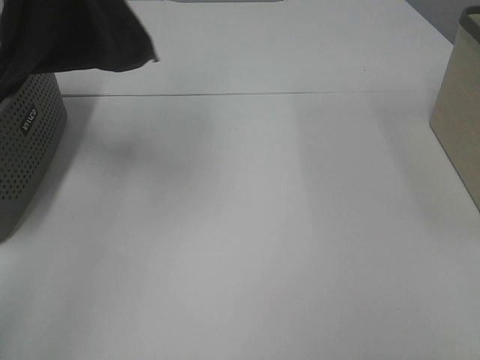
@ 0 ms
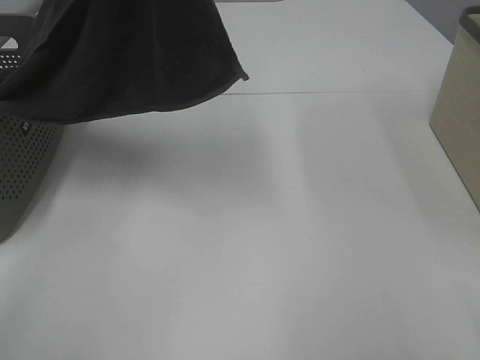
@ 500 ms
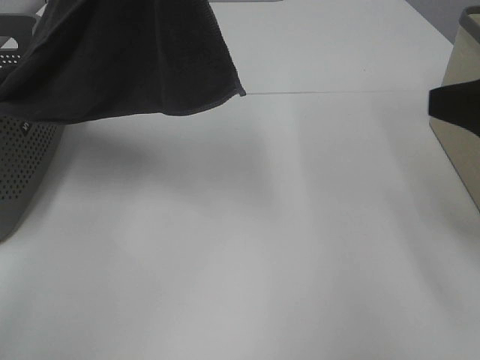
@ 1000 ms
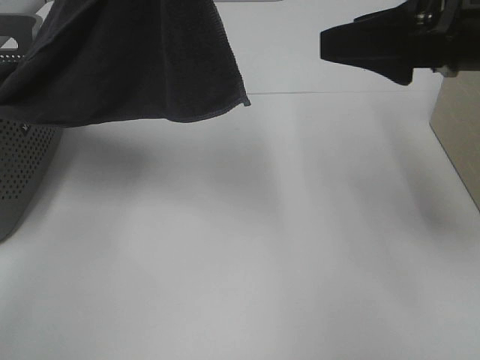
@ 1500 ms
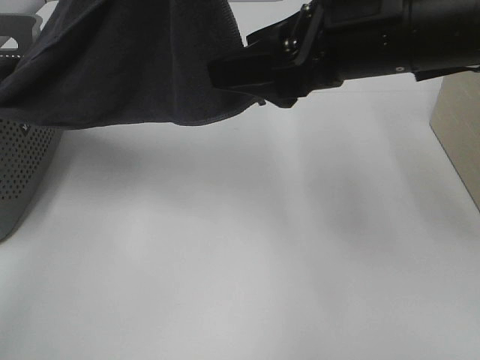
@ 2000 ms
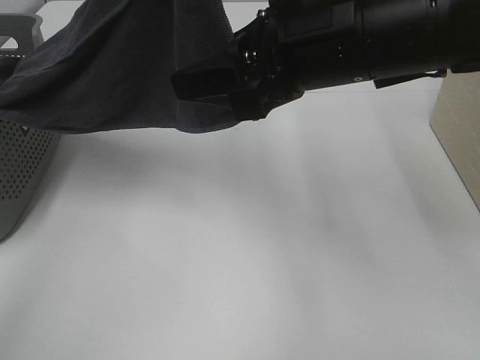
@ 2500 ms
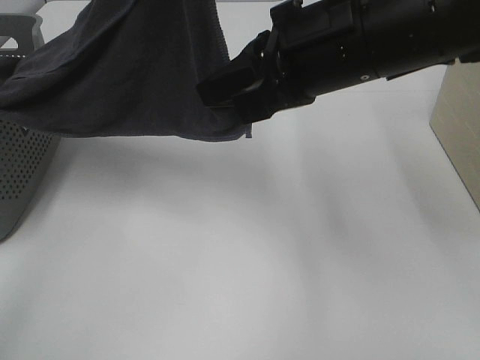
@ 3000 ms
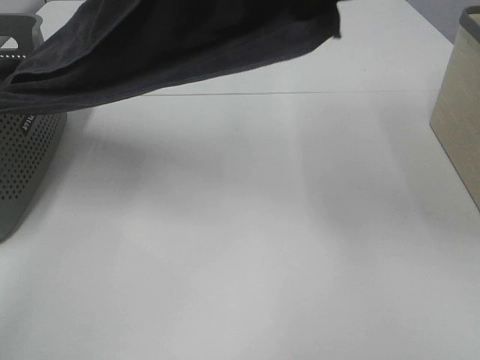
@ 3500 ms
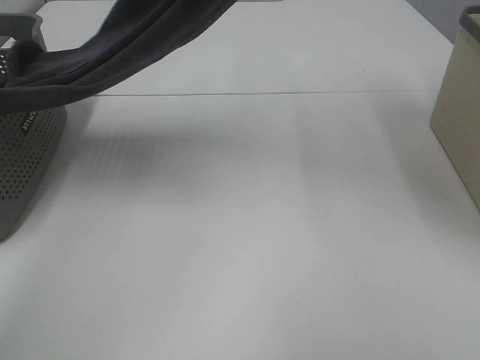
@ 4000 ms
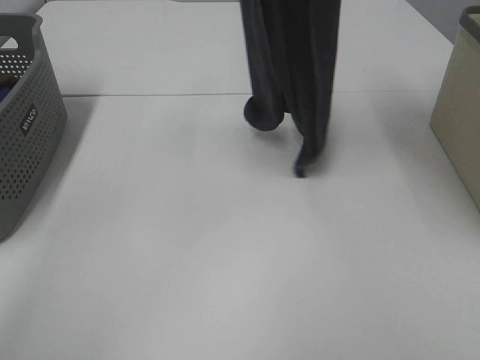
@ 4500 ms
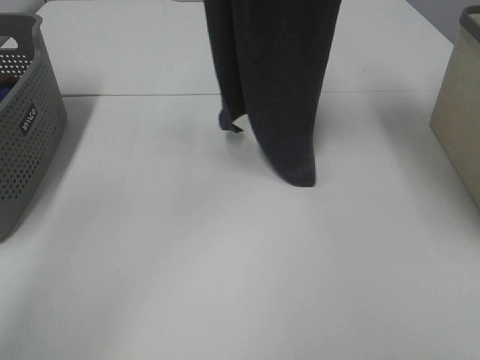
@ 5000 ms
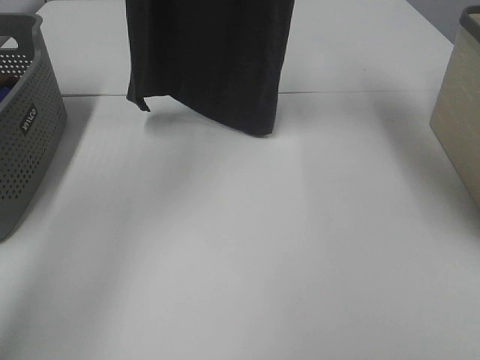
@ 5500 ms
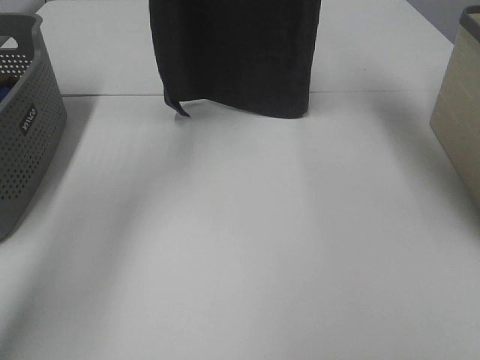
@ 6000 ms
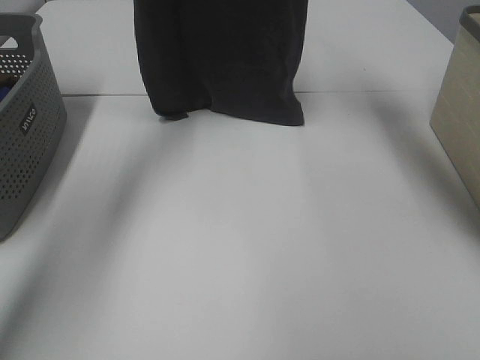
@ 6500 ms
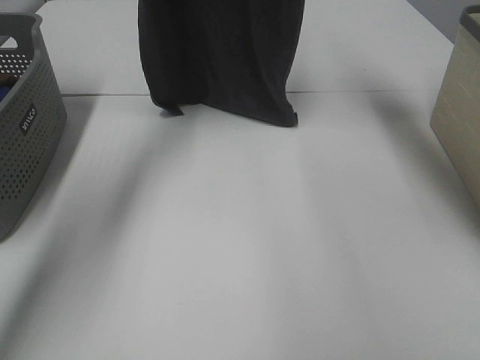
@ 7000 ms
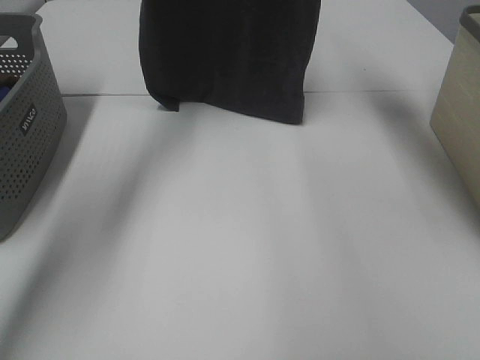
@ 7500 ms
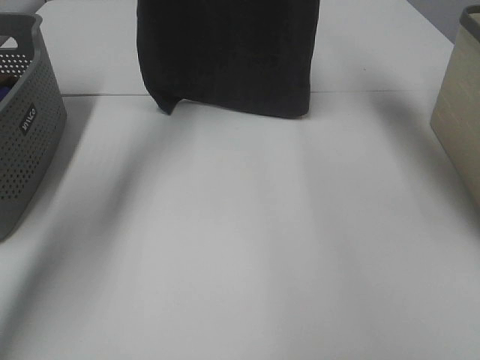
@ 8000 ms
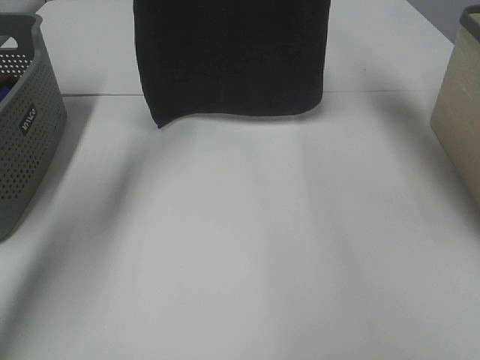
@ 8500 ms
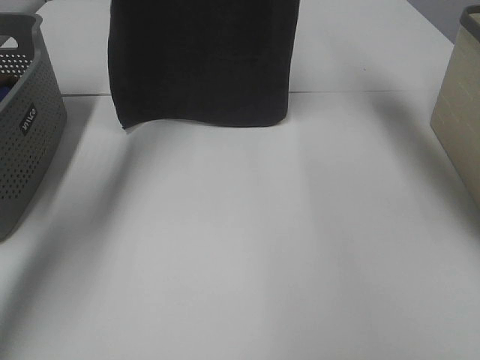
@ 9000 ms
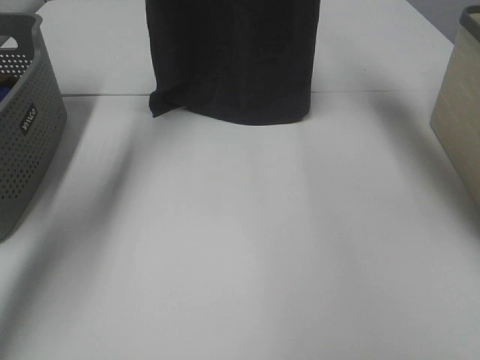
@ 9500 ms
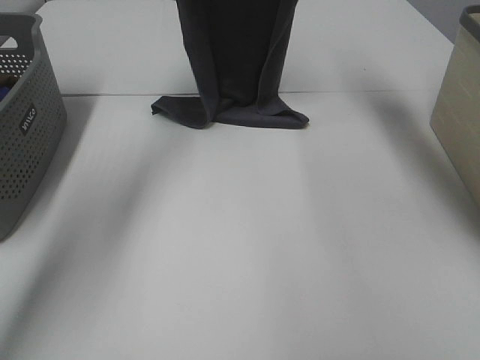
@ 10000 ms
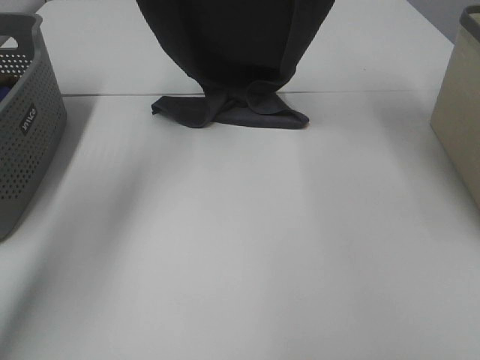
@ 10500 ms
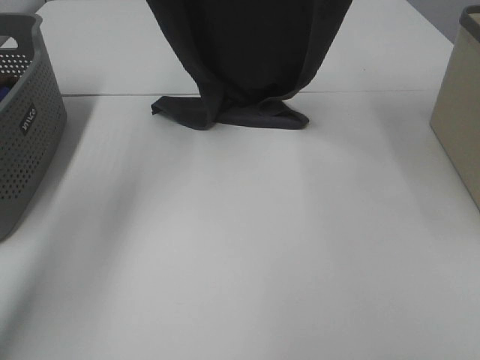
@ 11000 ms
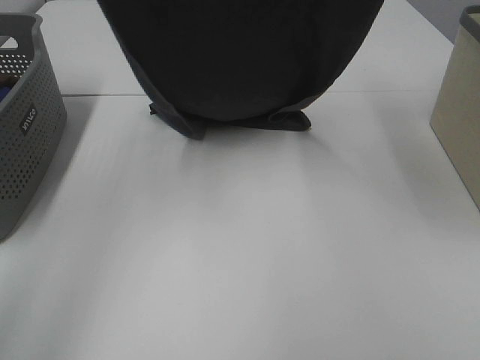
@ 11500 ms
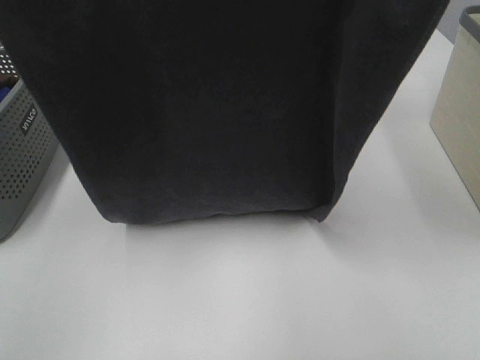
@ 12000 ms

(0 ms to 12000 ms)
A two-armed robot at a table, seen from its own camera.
Task of the whole recording: Remove the towel and place it.
Step, 0 ms - 3000 ms: Right hand: grab a corner of the grey towel and straighten it.
0 ms - 2000 ms: The right gripper travels forward and to the left by approximately 30 cm; the left gripper goes some 5 cm to the right.
2000 ms - 4000 ms: The left gripper goes about 5 cm forward; the right gripper moves upward, about 20 cm, and closes up.
4000 ms - 6000 ms: The right gripper moves forward, approximately 15 cm. Meanwhile the left gripper heads forward and downward, covering roughly 15 cm.
6000 ms - 8000 ms: The left gripper shifts by about 5 cm.
8000 ms - 10000 ms: Both grippers move downward, approximately 5 cm.
10000 ms - 12000 ms: Both grippers travel together backward, some 30 cm.

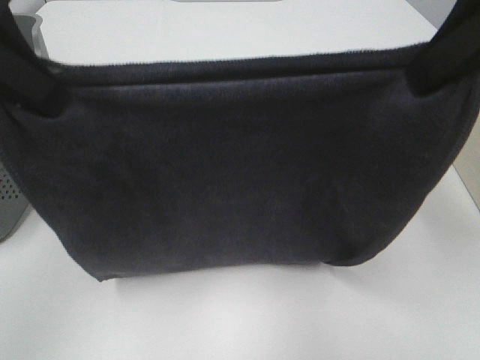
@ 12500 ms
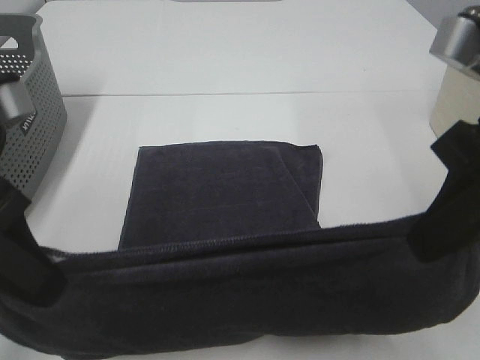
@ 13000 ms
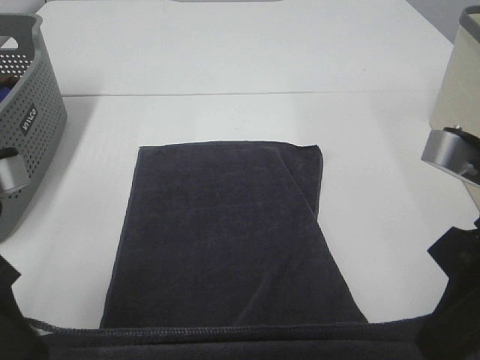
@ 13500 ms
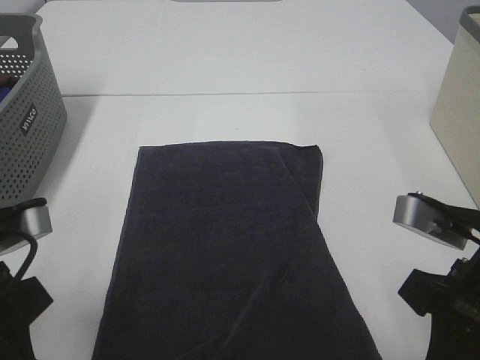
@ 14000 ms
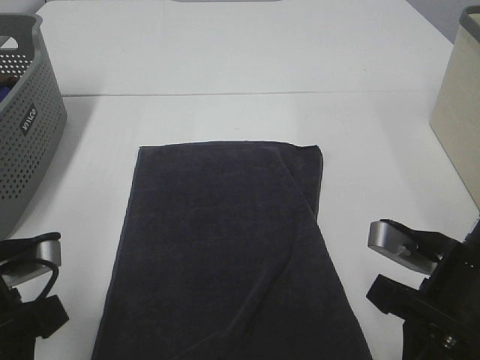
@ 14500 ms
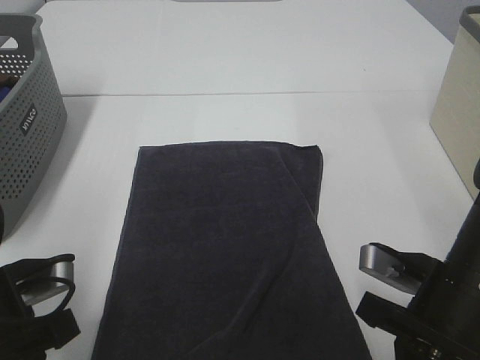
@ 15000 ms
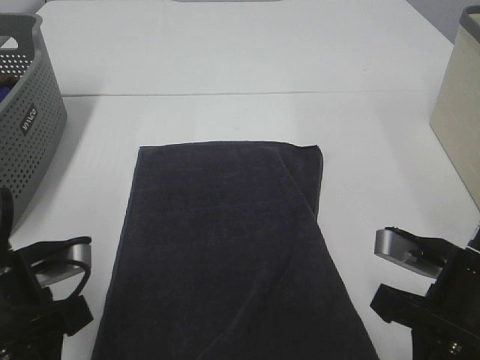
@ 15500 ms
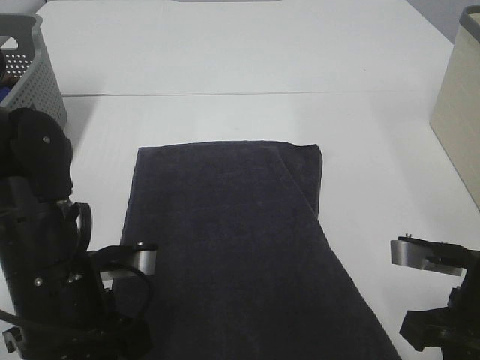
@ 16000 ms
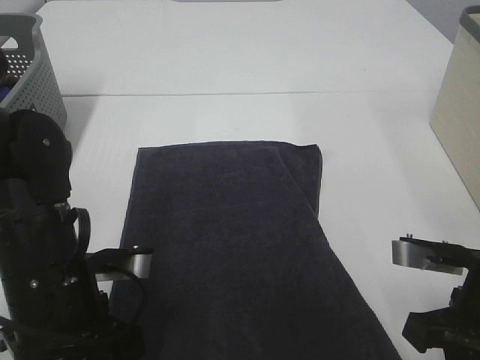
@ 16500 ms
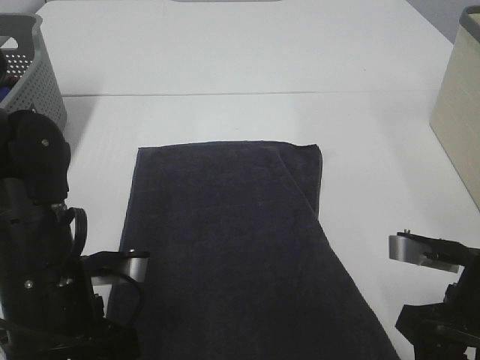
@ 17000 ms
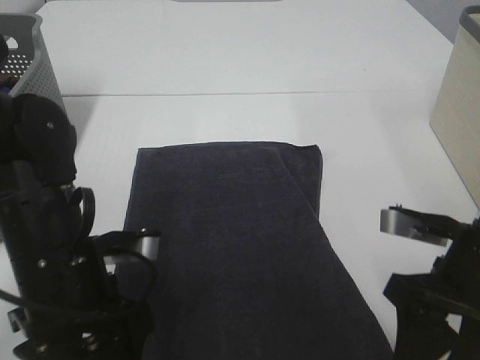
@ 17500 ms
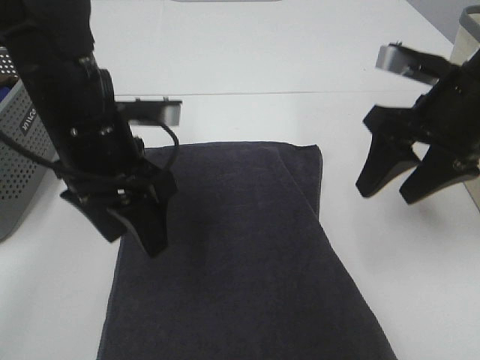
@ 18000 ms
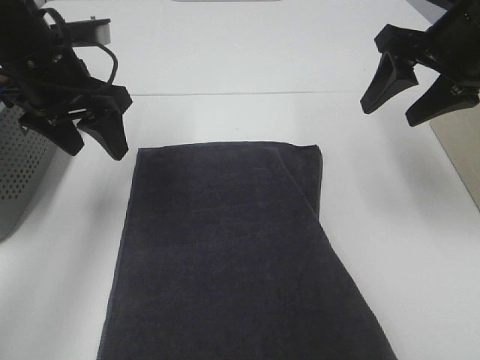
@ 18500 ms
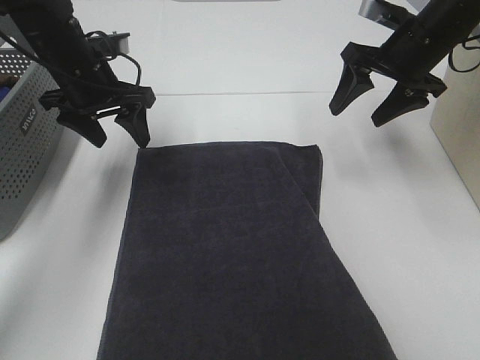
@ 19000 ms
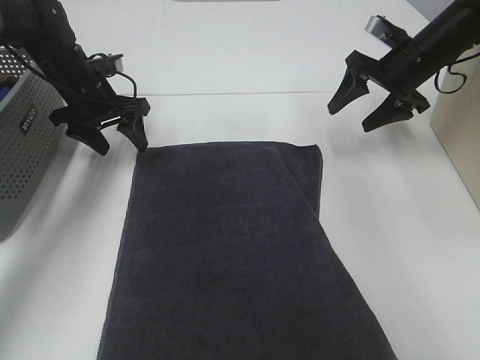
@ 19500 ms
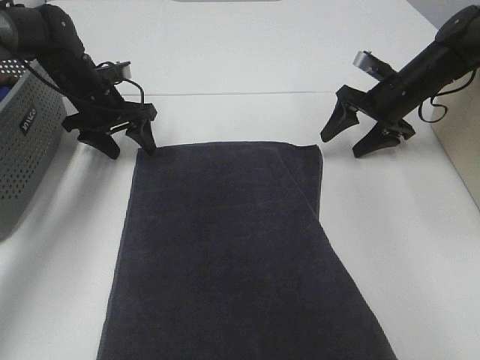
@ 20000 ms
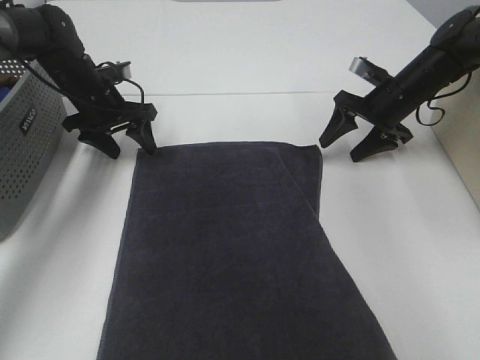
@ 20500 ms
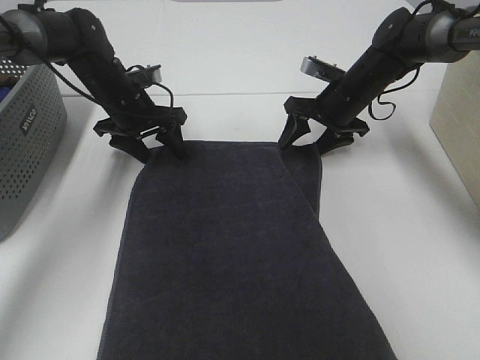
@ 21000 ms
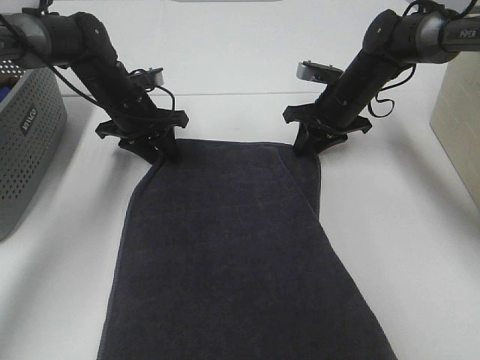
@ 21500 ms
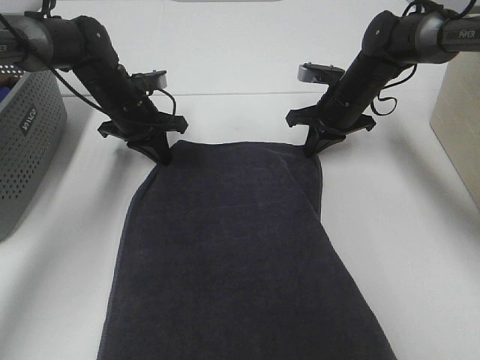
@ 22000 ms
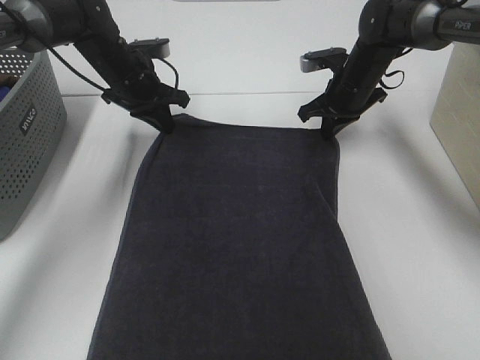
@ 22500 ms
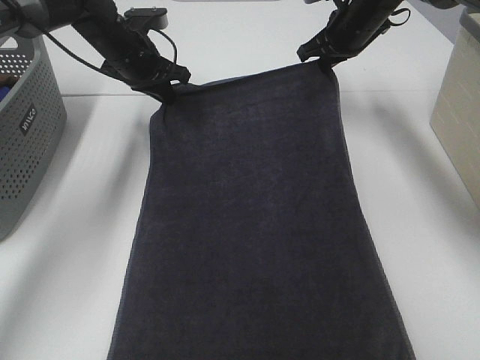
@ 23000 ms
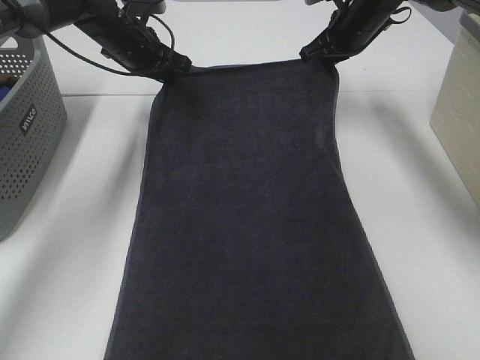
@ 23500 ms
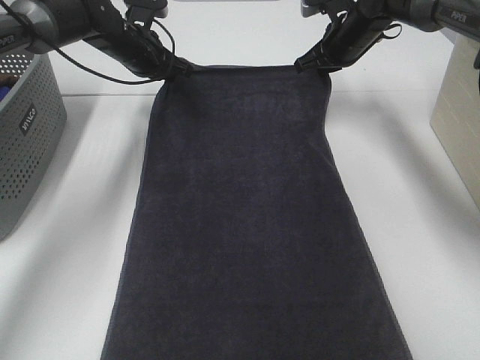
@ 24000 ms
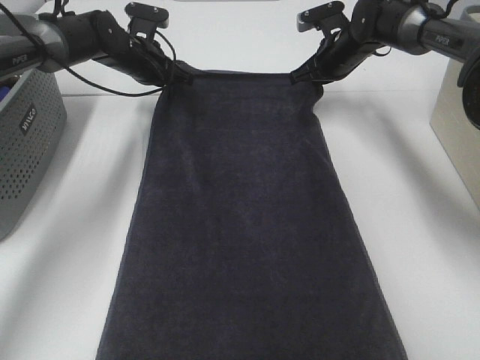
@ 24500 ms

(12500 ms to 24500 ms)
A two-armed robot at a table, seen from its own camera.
Task of the whole recording: Remove the towel and place it.
Step, 12500 ms - 19500 ms: Left hand:adjust the gray towel.
Step, 12500 ms - 19500 ms: Right hand:adjust the gray towel.
12500 ms - 14500 ms: The two grippers go about 20 cm downward.
14500 ms - 16500 ms: The left gripper goes about 5 cm to the right.
16500 ms - 18500 ms: Both grippers move forward and upward, approximately 20 cm. The right gripper opens up. Meanwhile the left gripper opens up.
18500 ms - 20500 ms: The right gripper travels downward and forward by some 20 cm. Meanwhile the left gripper moves forward and downward, approximately 20 cm.
20500 ms - 22500 ms: The left gripper moves to the right, roughly 5 cm, and closes its fingers, while the right gripper goes approximately 5 cm to the left, and closes its fingers.
22500 ms - 24500 ms: Both grippers move forward, roughly 5 cm. The right gripper goes upward and returns, about 10 cm each way.

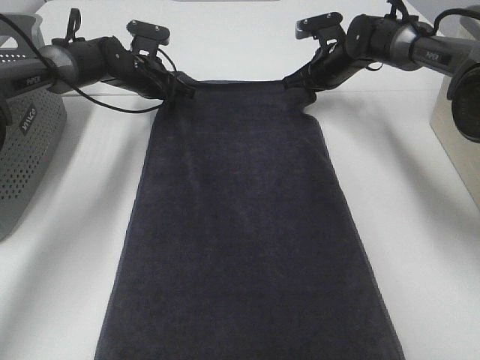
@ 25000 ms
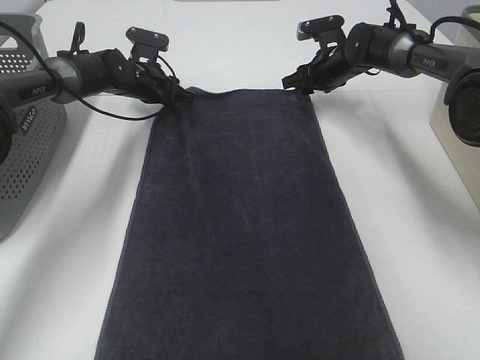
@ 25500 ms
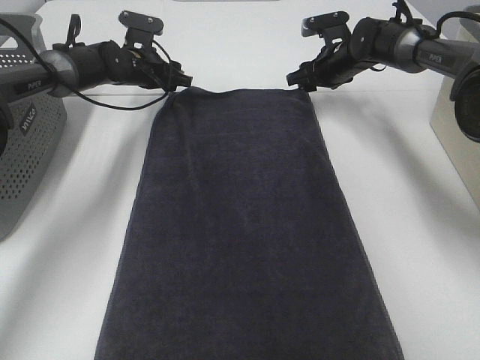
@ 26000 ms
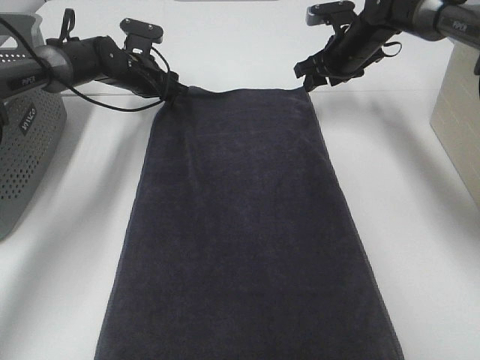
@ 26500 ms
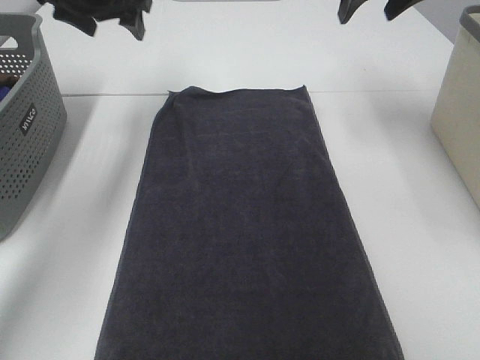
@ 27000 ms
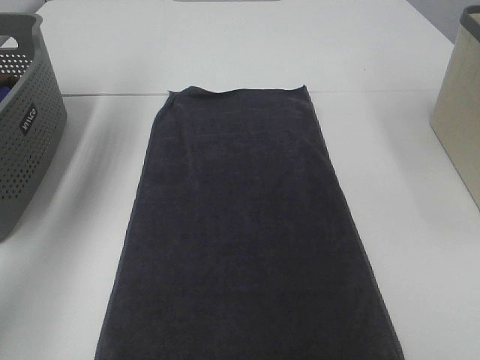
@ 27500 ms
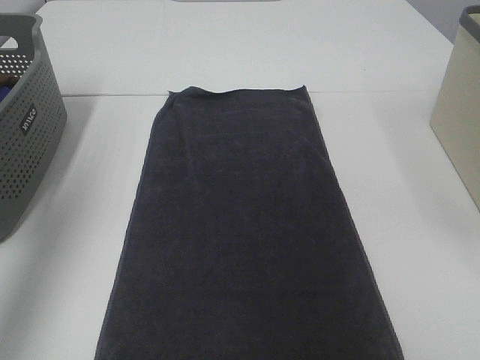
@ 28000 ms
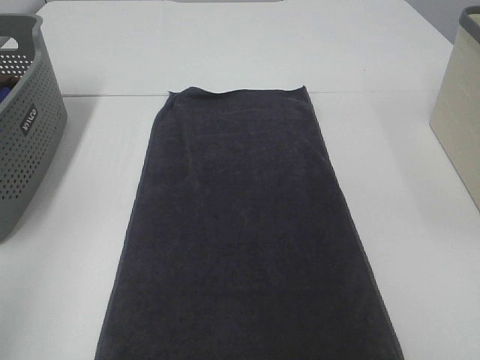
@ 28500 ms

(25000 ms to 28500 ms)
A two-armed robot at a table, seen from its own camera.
Task of the whole recording: Remove the towel and place it.
25000 ms - 27000 ms: The left gripper moves upward, approximately 20 cm, and opens up, while the right gripper shifts some 25 cm upward and backward, and opens its fingers.
27000 ms - 28500 ms: Both grippers move backward, about 40 cm.
